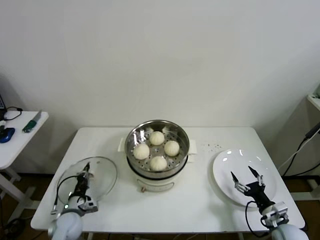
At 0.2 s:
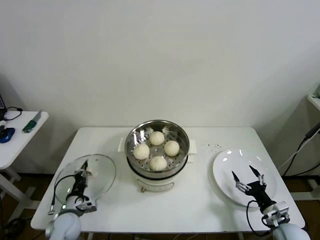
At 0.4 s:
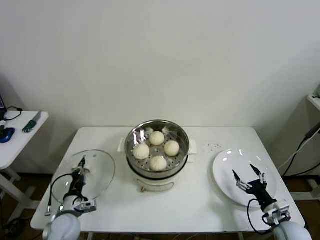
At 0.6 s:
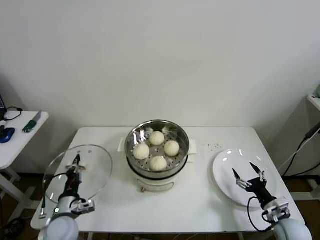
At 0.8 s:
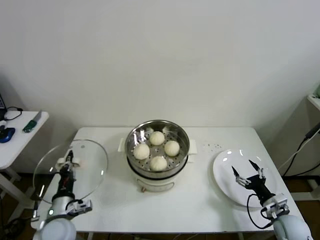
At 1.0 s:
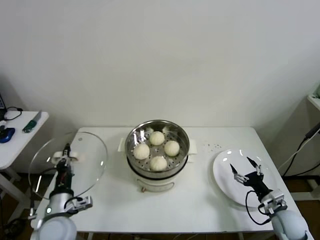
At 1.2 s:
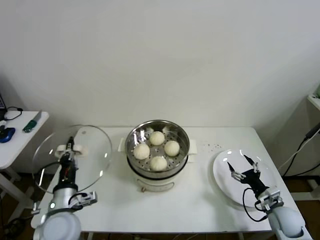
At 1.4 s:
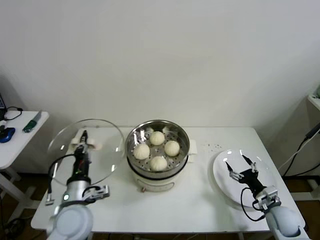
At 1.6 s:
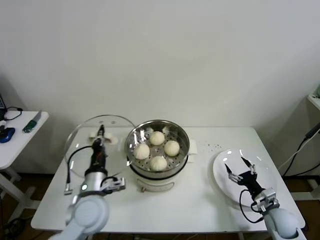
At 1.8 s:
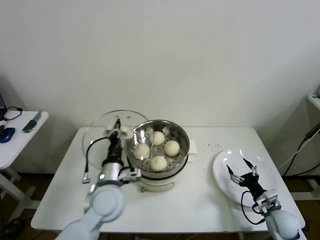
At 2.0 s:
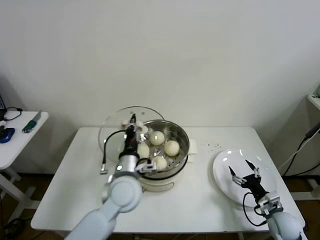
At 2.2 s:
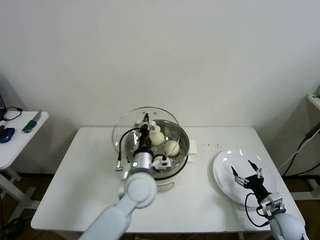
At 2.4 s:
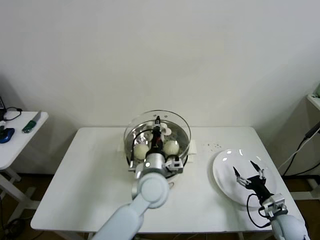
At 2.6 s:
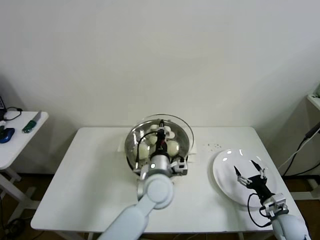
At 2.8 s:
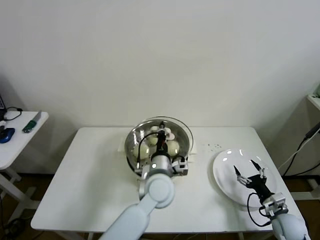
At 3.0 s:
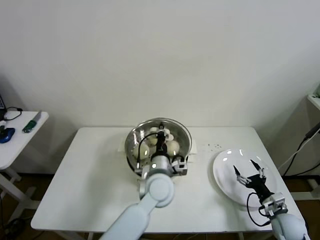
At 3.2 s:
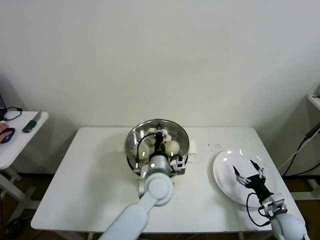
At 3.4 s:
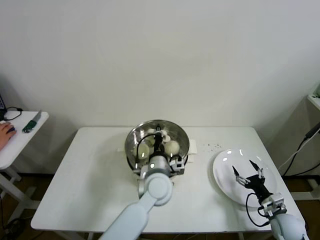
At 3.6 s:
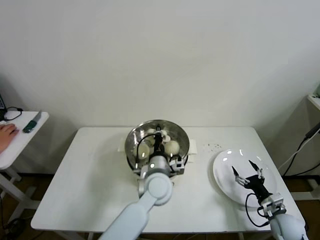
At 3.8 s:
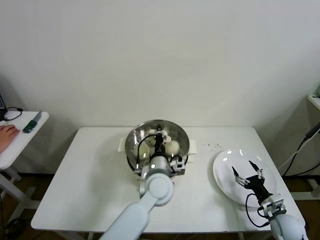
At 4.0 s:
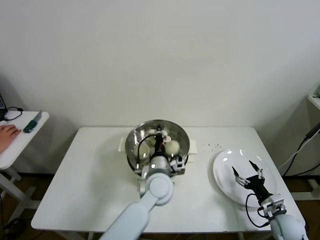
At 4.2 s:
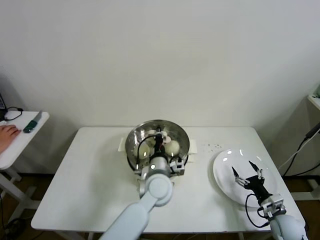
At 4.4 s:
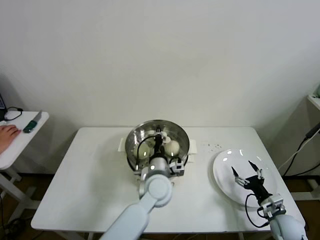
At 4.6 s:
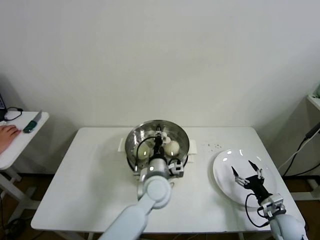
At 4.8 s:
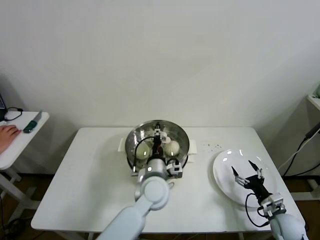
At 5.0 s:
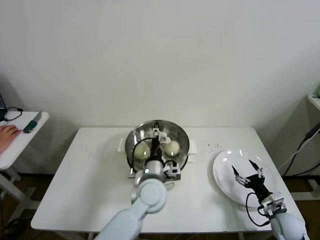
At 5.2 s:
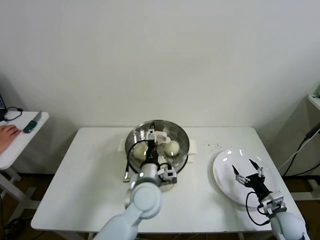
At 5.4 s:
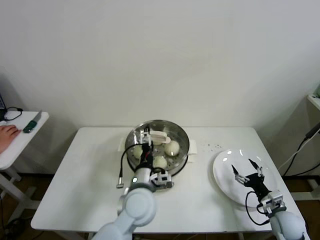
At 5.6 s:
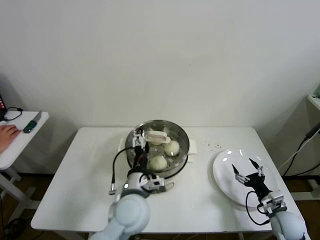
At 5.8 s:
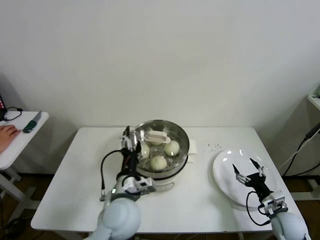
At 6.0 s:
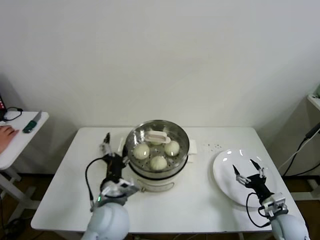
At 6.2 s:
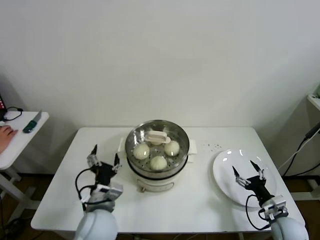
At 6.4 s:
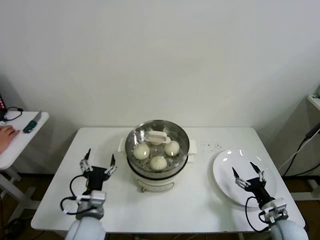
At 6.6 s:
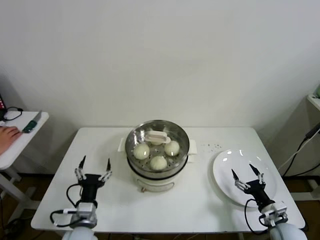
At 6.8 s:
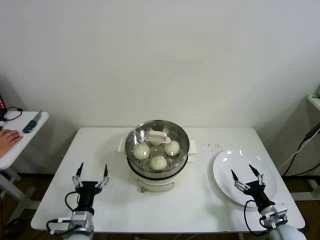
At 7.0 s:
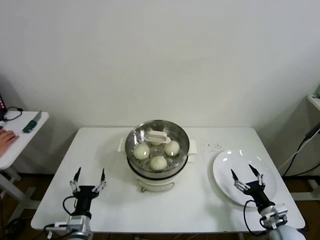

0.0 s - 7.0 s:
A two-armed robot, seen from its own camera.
Step, 0.0 s - 4.4 s: Place the pot lid on the steamer with left gripper.
0.0 s - 1.4 s: The left gripper goes approximately 20 cm upward and to the right. The right gripper heads forward, covering approximately 5 cm.
1.4 s - 2.8 s: The left gripper shifts about 25 cm to the right.
2.8 s - 4.2 s: The grippers move only a little.
4.2 s - 5.6 s: The left gripper is displaced backward and to the left by about 10 cm, and opens.
5.6 s - 7.0 s: The left gripper shifts roughly 25 cm to the left, downward and backward.
